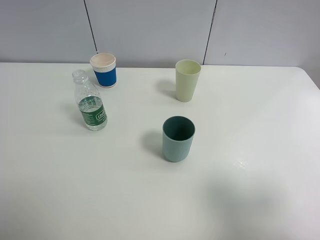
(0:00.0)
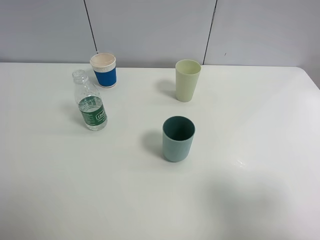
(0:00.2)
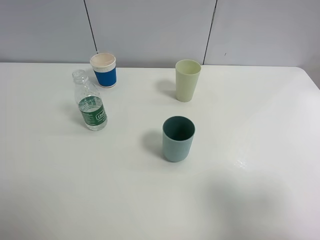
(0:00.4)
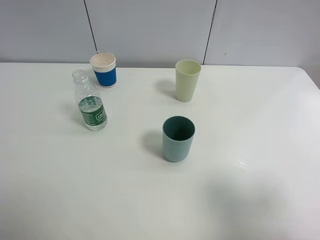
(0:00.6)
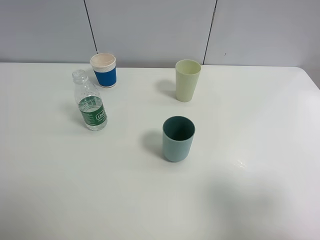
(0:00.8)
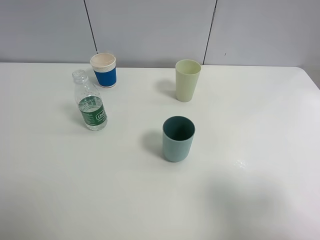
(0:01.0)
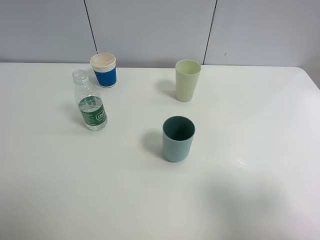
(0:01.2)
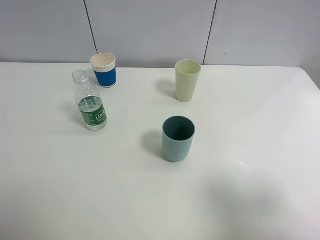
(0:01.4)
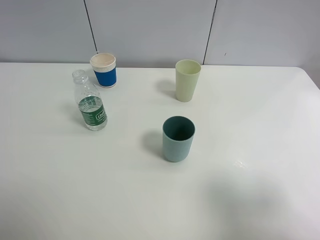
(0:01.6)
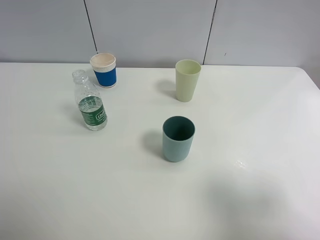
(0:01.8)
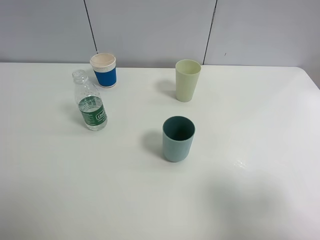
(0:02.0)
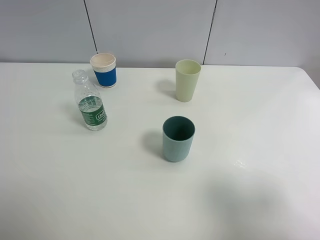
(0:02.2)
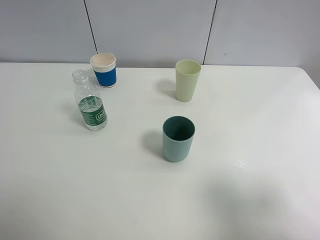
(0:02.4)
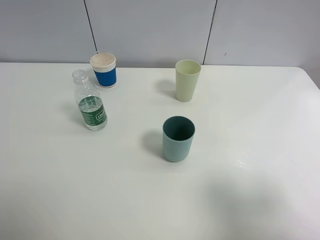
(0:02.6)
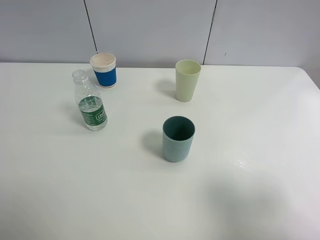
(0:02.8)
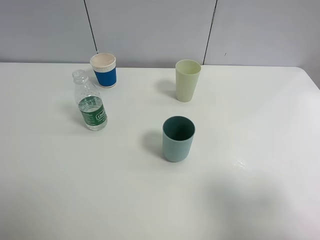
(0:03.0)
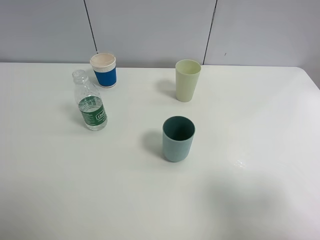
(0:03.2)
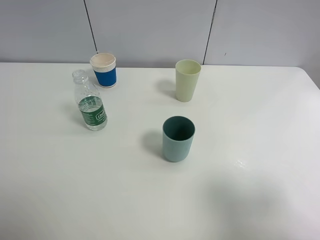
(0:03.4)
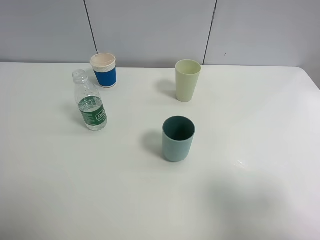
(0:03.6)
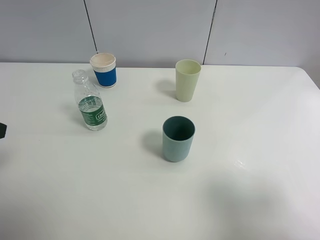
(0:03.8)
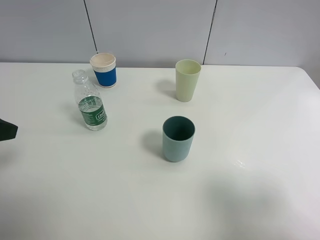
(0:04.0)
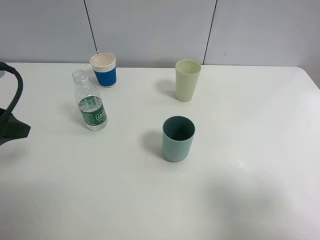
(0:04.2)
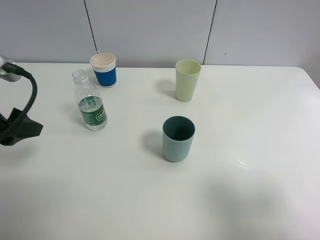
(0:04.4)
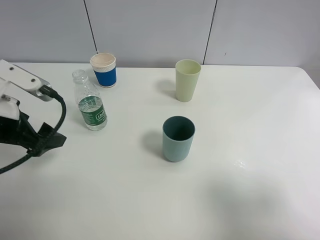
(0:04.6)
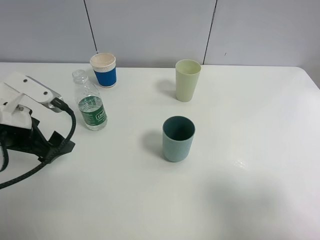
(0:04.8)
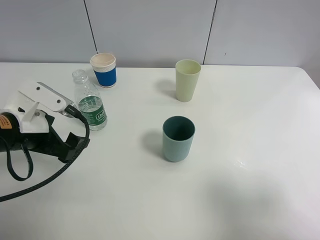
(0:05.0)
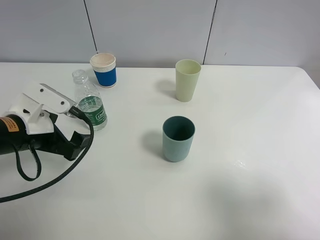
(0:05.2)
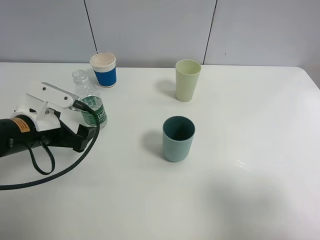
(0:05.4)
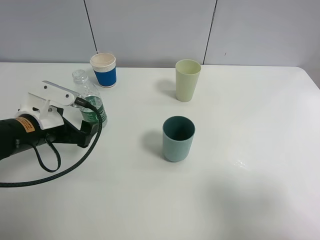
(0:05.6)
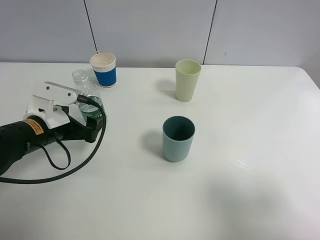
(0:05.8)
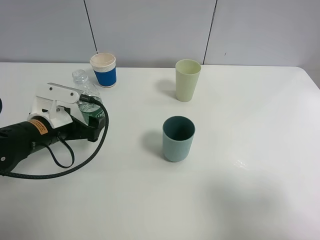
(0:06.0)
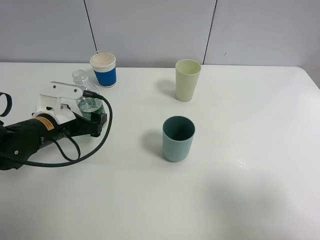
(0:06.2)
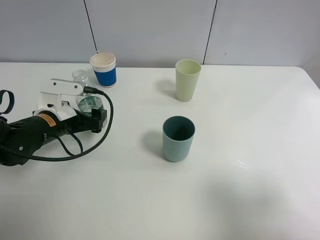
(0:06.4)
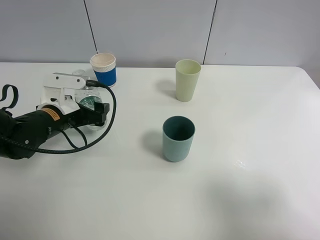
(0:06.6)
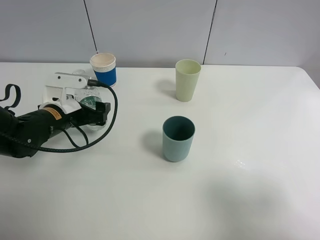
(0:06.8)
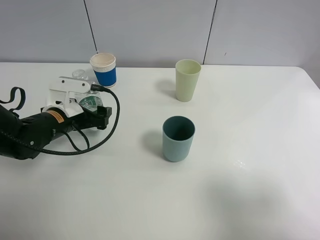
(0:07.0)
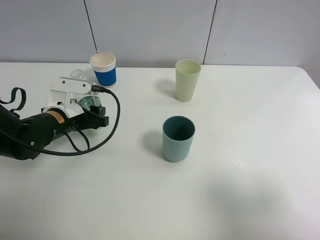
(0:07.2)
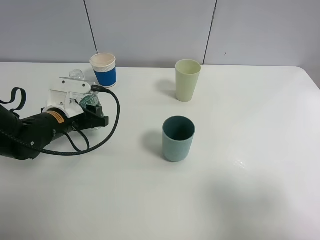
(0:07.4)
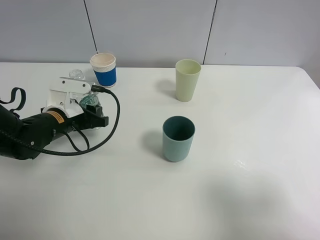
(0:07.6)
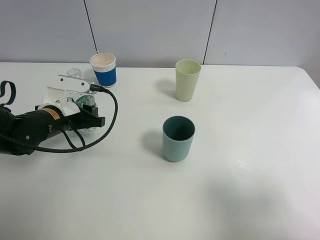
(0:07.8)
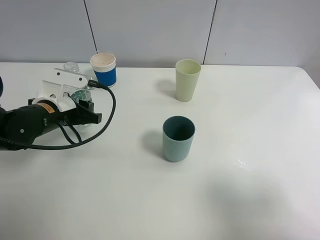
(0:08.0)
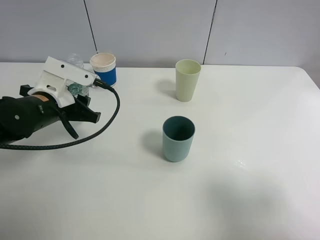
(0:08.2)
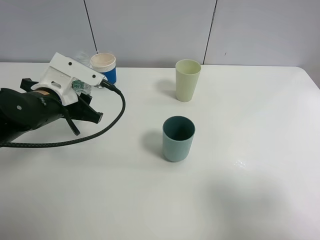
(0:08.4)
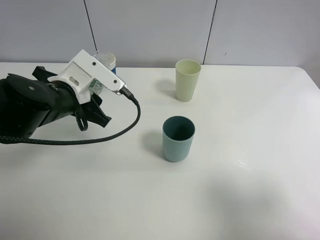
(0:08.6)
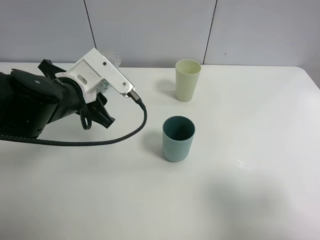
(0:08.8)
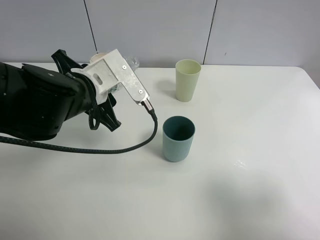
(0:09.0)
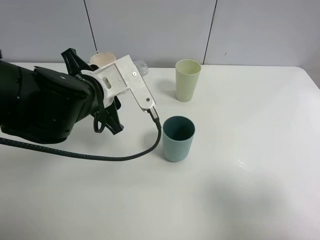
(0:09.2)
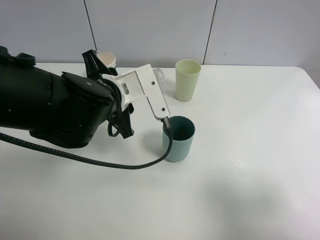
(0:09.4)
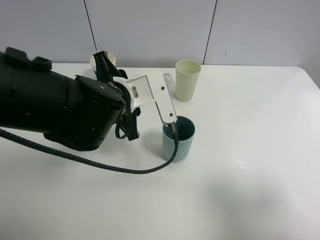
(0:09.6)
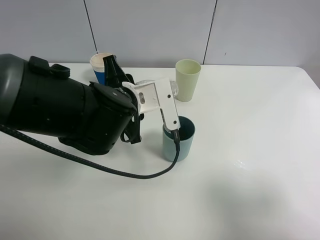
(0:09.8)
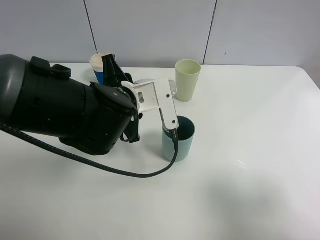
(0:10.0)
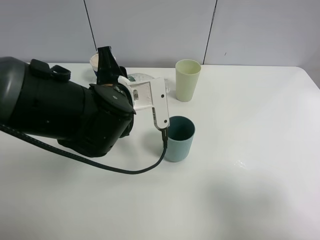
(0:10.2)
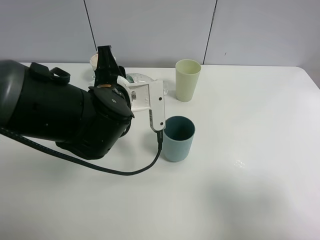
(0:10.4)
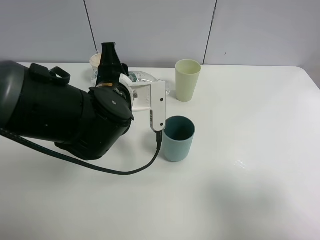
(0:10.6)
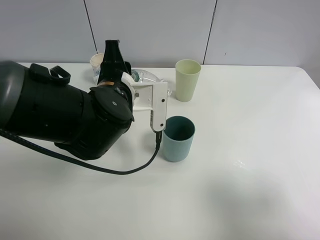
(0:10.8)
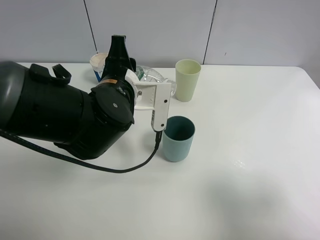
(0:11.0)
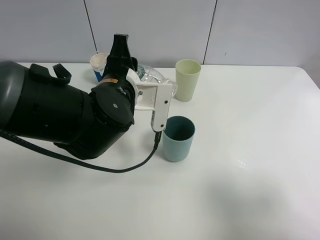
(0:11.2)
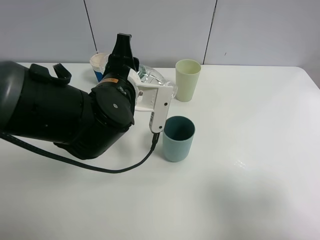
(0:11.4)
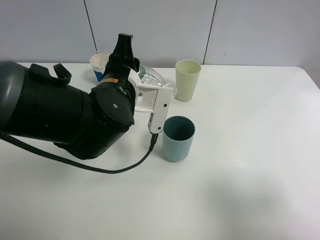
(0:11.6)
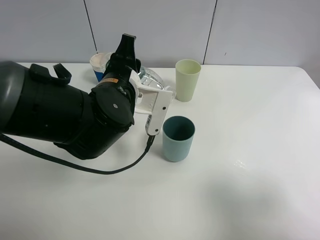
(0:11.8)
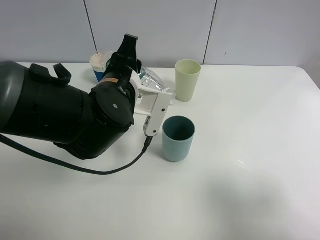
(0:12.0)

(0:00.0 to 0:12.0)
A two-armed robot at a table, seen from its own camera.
Task of the whole recording: use a clamp to hold the bottle of the drink, pour the beverage into a random cup, then clamp the cup containing the drink and pour the drink into another random cup.
Step, 0:00.0 - 0:08.6: Pick up the water bottle with left gripper.
0:00.0 - 0:03.0: Neither gripper changes place.
0:03.0 - 0:04.4: The left gripper goes approximately 15 cm forward.
0:04.4 - 0:06.0: The left gripper is displaced downward, to the right and forward by roughly 15 cm.
0:06.0 - 0:07.6: The left gripper closes.
0:07.6 - 0:09.0: The left gripper heads upward and to the right, covering about 15 cm.

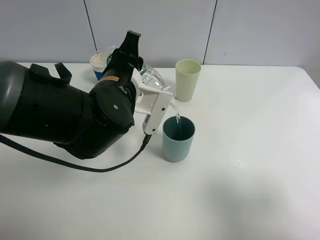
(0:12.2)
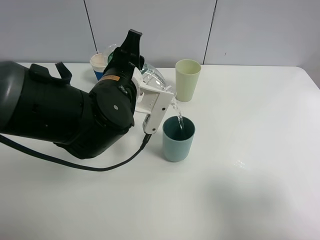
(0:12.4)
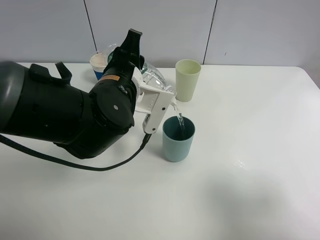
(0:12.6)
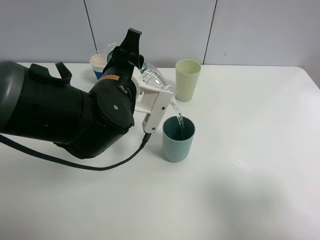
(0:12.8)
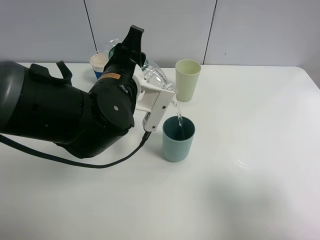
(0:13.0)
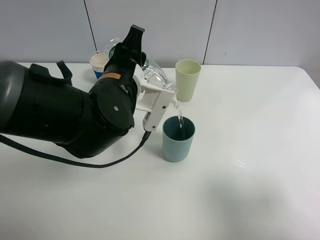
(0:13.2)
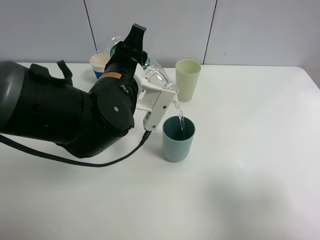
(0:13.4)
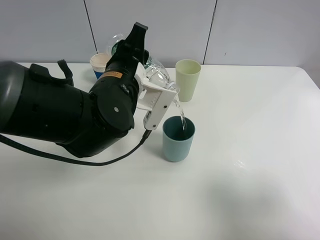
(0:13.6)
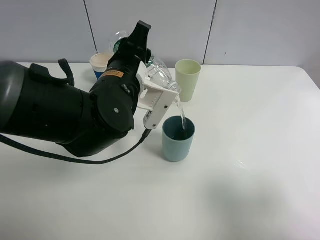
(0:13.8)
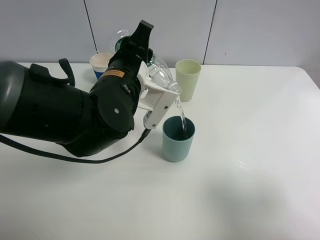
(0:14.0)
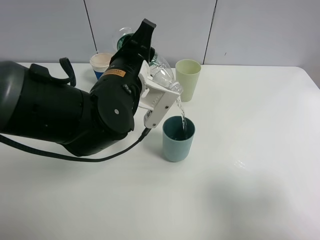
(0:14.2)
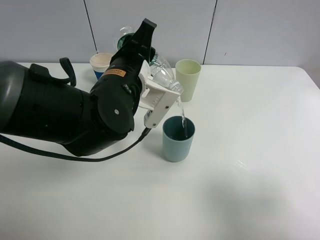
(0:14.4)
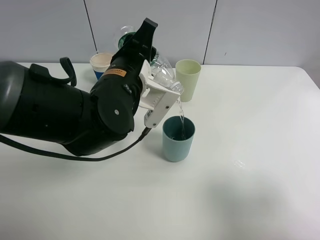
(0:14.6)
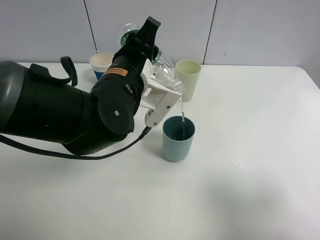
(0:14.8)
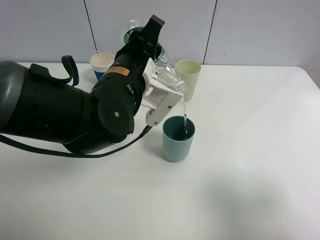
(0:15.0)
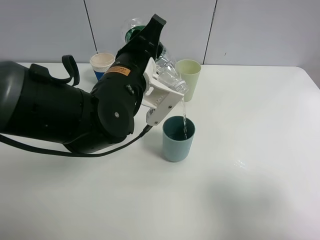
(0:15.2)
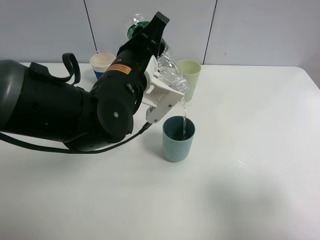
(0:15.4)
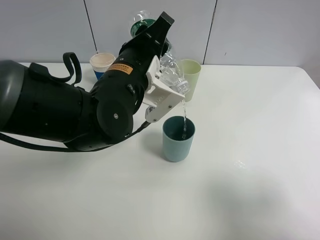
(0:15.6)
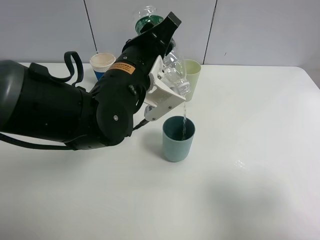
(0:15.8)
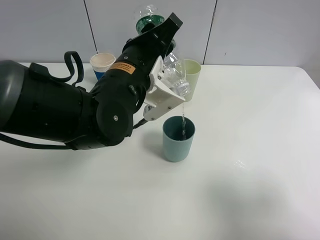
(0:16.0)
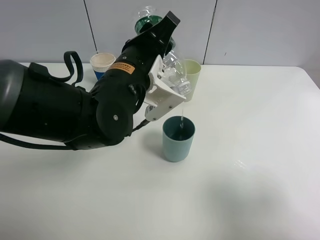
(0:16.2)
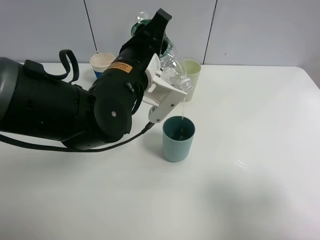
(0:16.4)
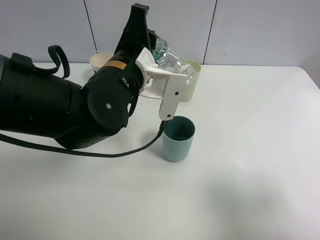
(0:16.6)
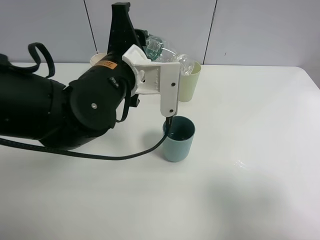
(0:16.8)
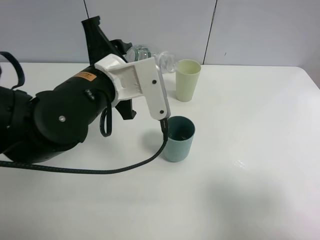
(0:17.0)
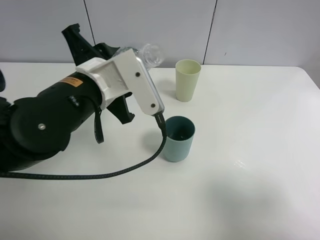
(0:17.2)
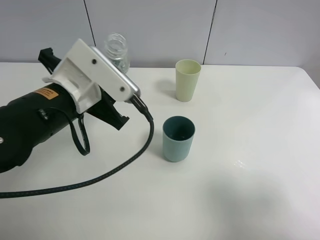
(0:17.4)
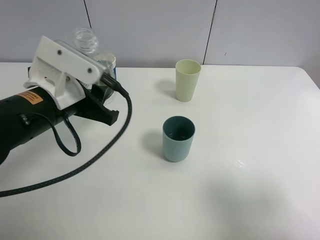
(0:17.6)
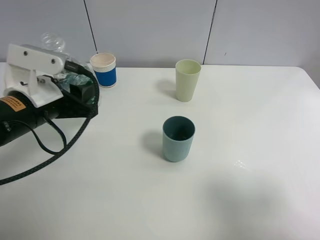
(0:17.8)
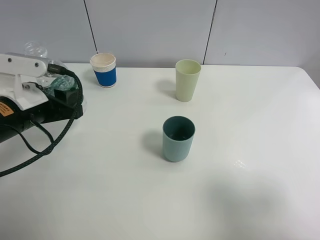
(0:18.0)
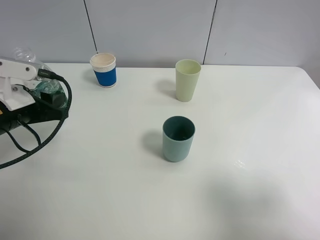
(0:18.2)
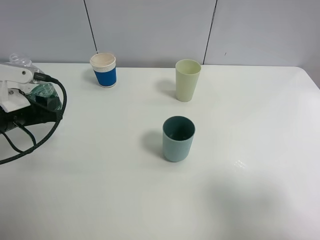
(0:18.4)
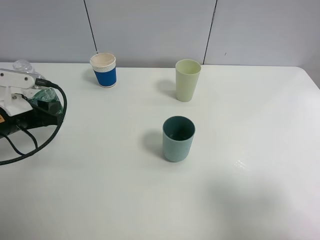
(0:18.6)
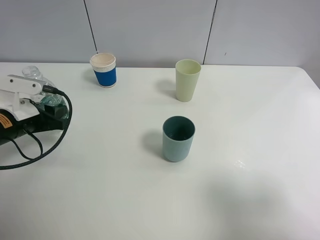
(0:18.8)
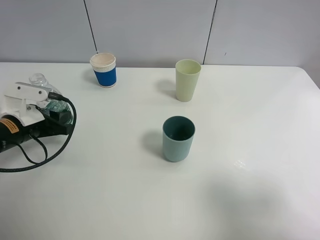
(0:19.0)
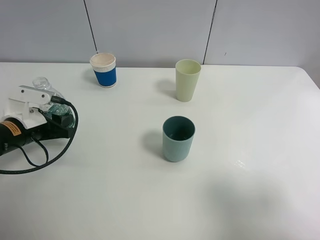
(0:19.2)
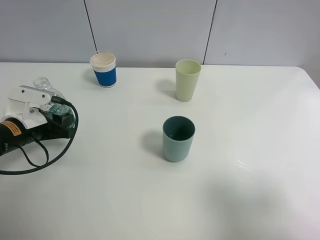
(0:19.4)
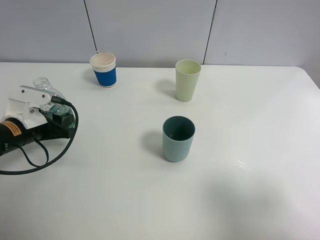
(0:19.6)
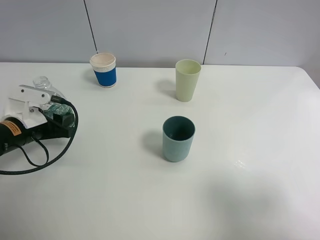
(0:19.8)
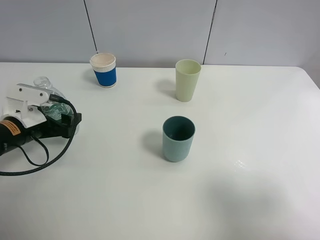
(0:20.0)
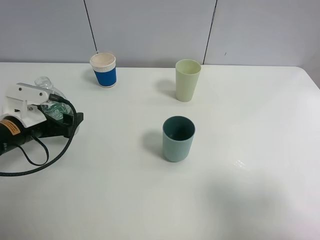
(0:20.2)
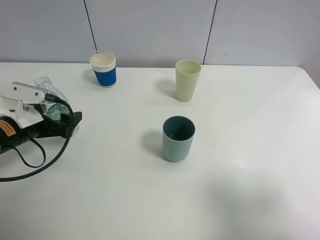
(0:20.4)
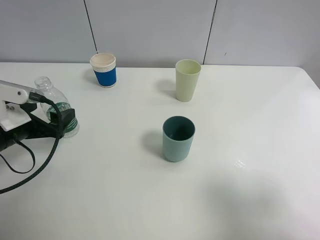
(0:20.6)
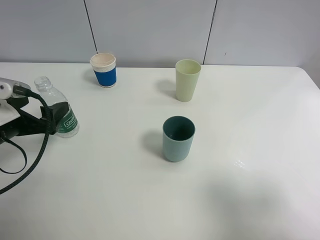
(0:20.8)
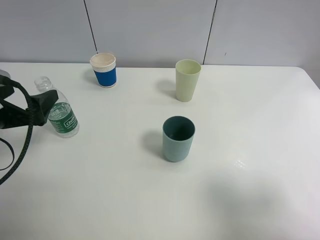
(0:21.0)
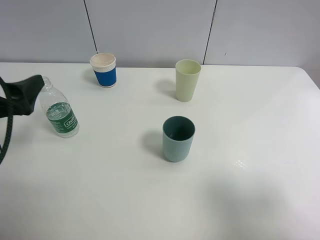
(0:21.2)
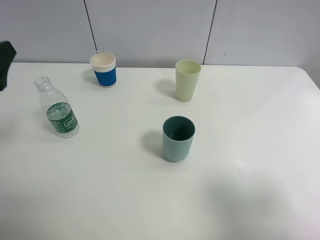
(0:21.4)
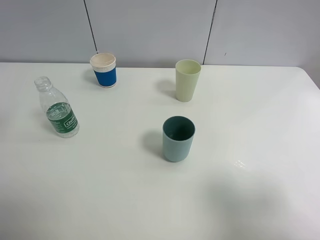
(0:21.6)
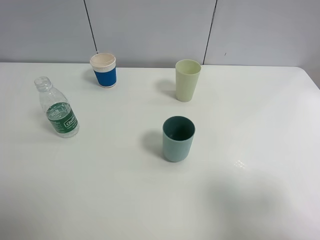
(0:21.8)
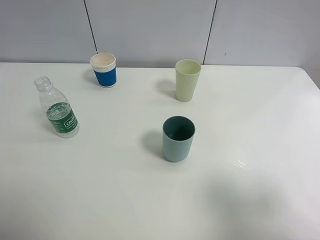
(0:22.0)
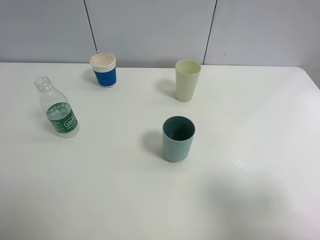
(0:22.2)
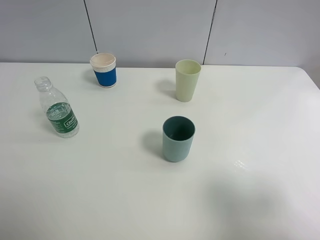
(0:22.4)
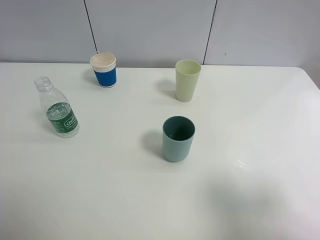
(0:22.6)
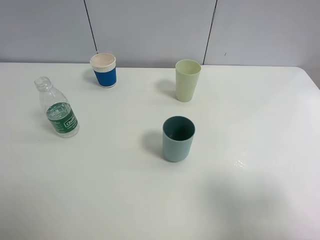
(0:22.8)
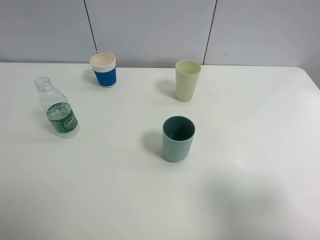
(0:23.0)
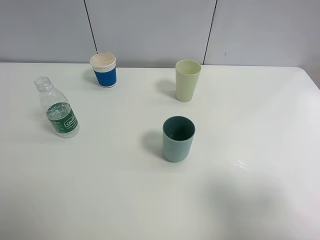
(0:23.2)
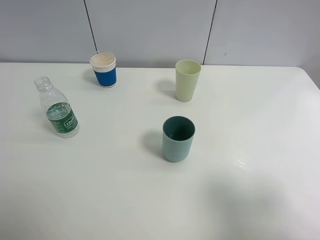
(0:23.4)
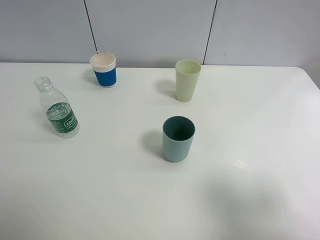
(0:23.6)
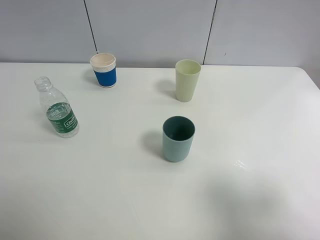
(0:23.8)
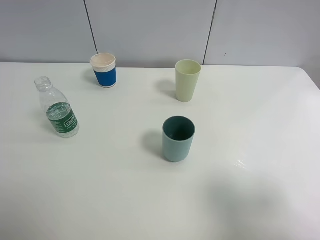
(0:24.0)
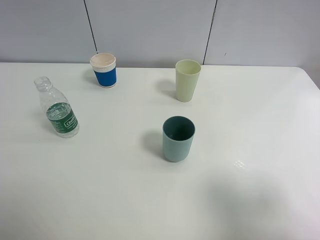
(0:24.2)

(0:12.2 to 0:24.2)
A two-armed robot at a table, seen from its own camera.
Task of the whole recording: use a clamp to hold the bottle of the drink, pour the beverage into a random cup, then clamp the cup containing the drink and pour the drink into another random cup.
Step, 0:12.2 - 0:16.8: Pour the water into the blue plastic cup with left gripper.
Step, 0:17.0 - 0:20.4: Place the water bottle on the table with left gripper.
0:12.2 - 0:15.2: The grippers make only small movements.
0:16.6 - 0:18.2: The left gripper goes about 20 cm to the left.
0:18.2 - 0:19.8: The left gripper travels downward by roughly 5 cm.
0:19.8 - 0:21.2: The left gripper heads upward and backward, covering roughly 15 cm, and opens up.
0:21.2 - 0:22.6: The left gripper moves backward and upward, some 20 cm.
